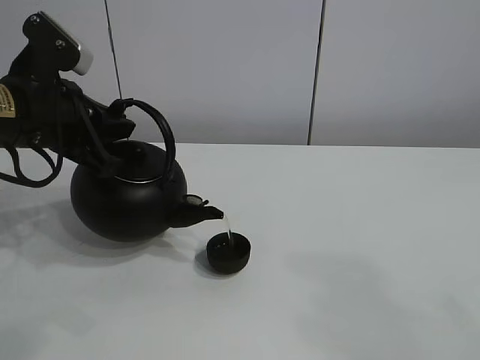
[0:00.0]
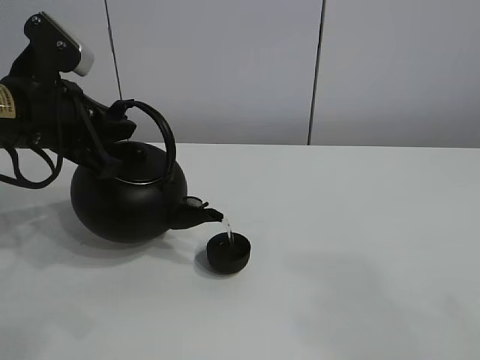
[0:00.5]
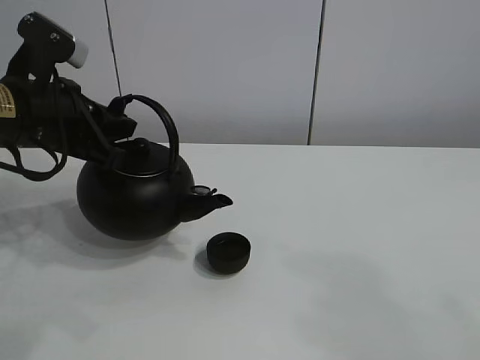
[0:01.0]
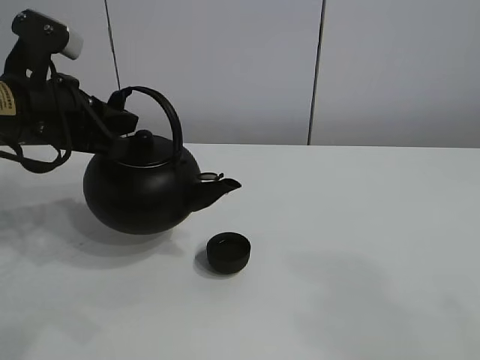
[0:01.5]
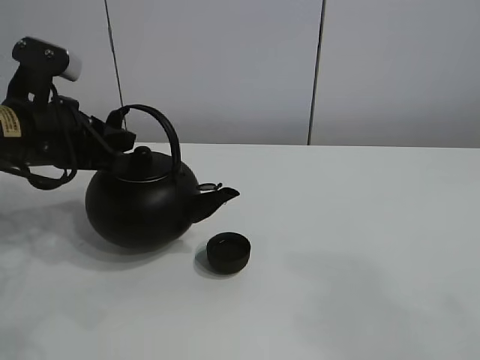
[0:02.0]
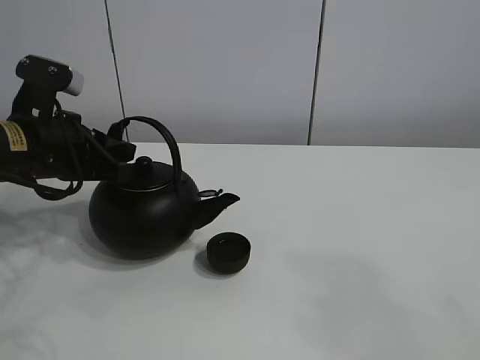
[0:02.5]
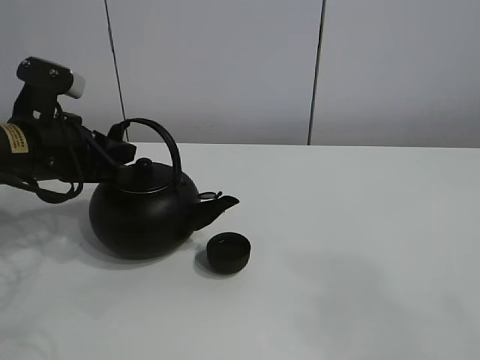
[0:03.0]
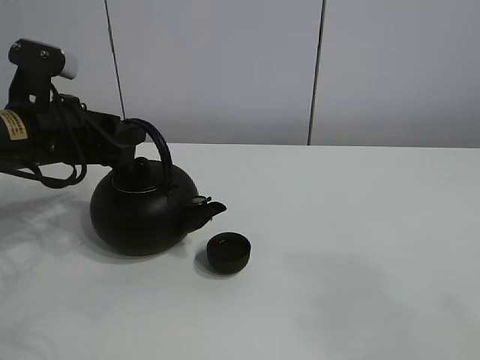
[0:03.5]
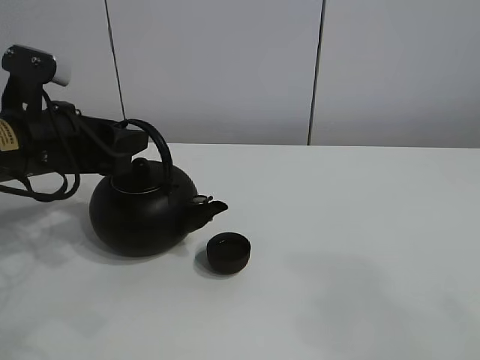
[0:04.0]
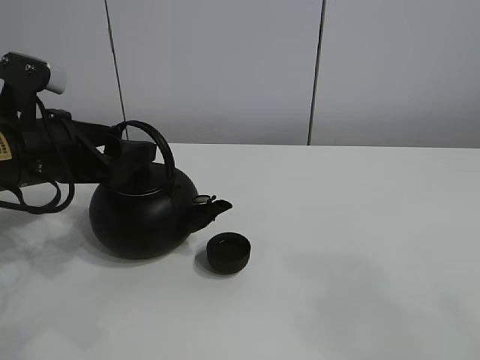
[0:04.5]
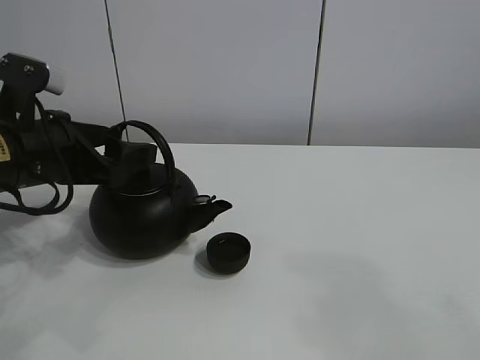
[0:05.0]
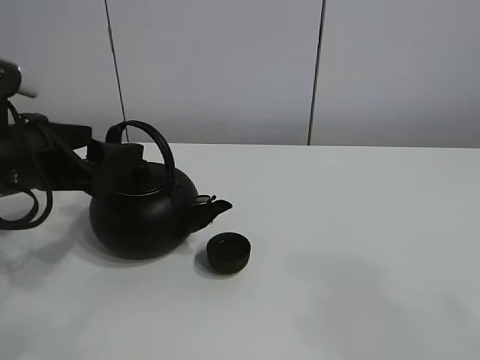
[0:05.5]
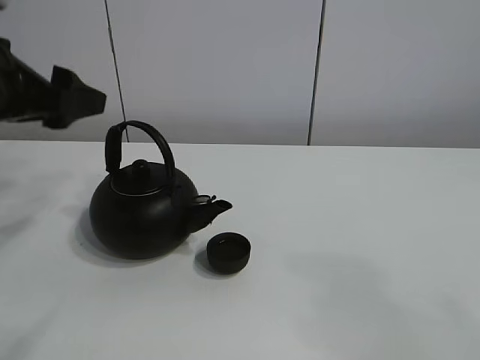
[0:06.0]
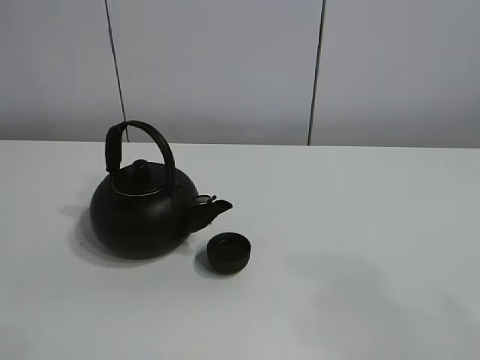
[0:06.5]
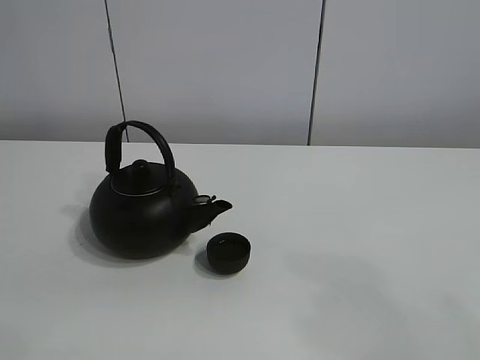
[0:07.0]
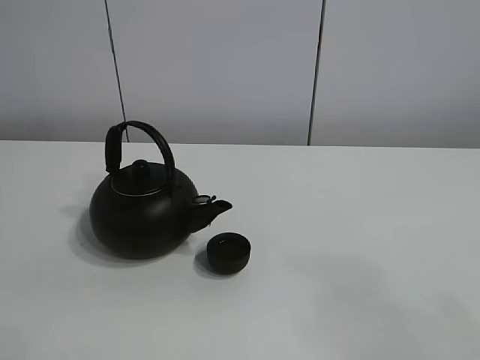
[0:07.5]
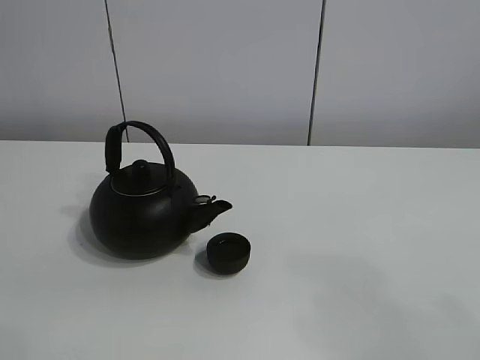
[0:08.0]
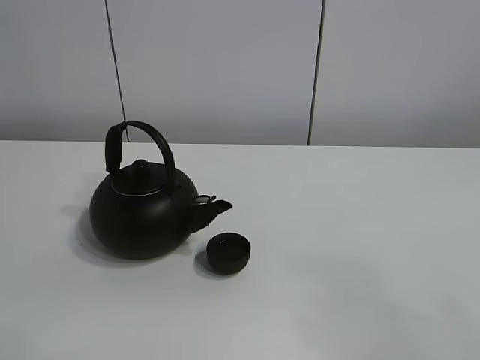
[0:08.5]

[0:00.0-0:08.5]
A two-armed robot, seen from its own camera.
Task of the whole recording: pour tea into the teacup.
0:00.0 to 0:02.0: The grippers move only a little.
0:02.0 to 0:04.0: The left gripper opens.
0:04.0 to 0:06.5: The left gripper travels upward and to the left by about 25 cm, and opens up.

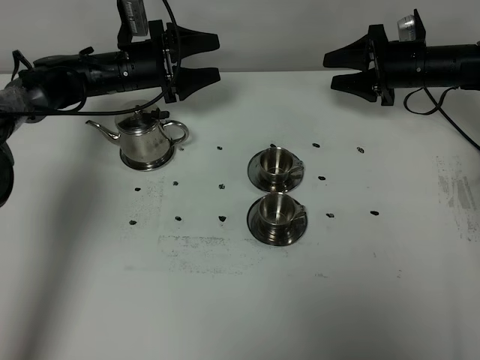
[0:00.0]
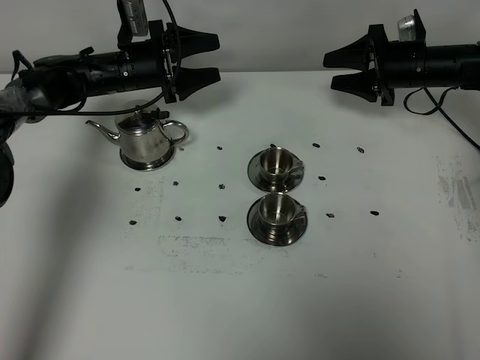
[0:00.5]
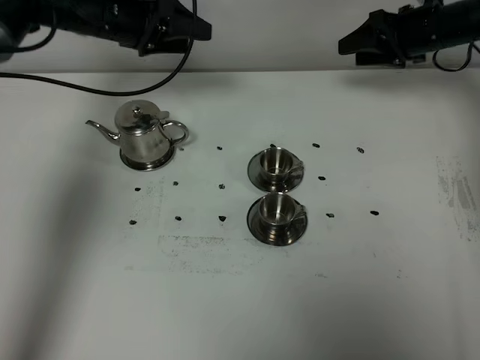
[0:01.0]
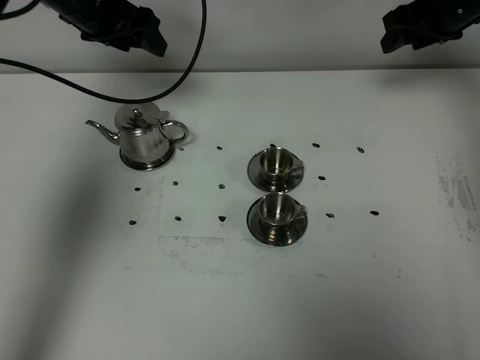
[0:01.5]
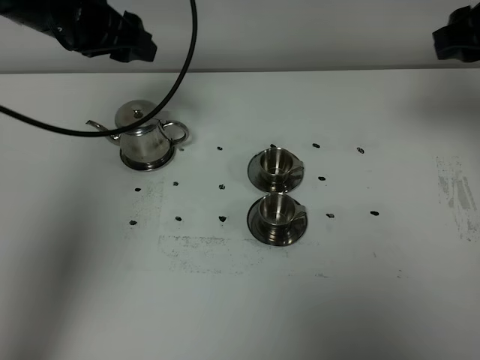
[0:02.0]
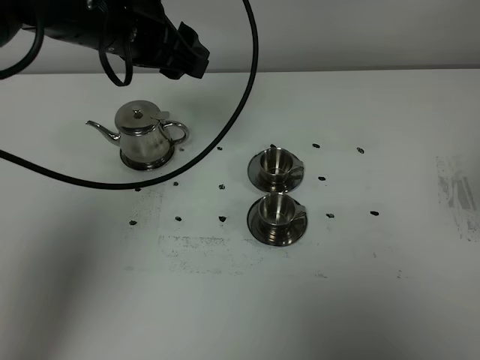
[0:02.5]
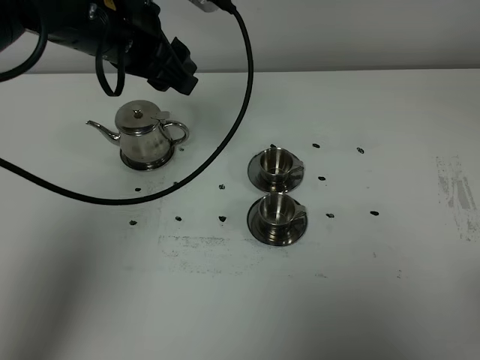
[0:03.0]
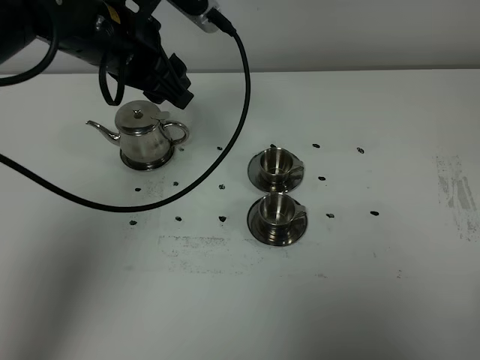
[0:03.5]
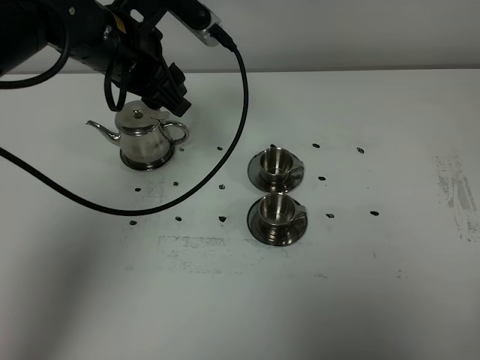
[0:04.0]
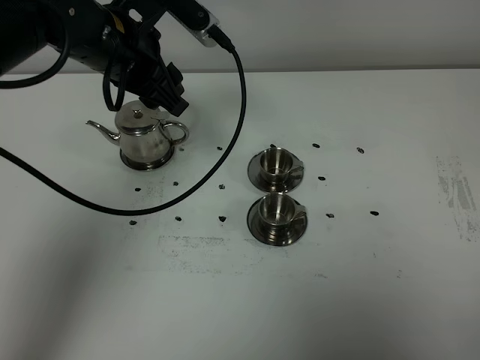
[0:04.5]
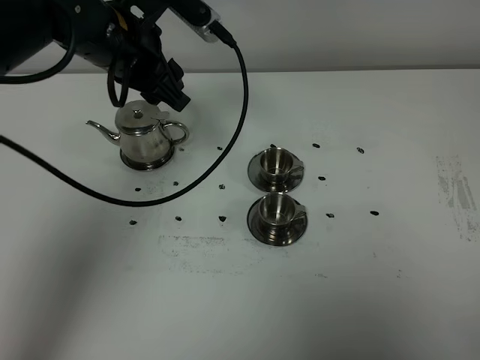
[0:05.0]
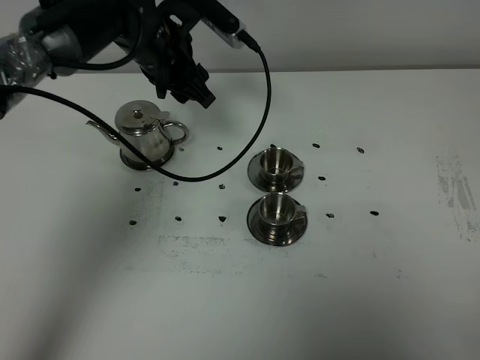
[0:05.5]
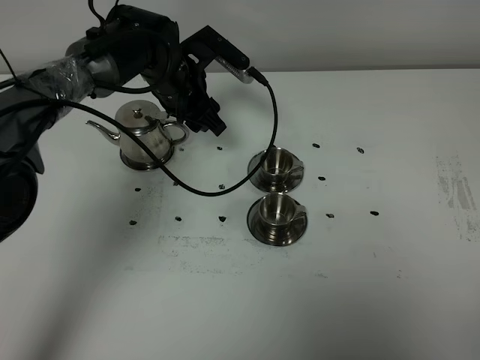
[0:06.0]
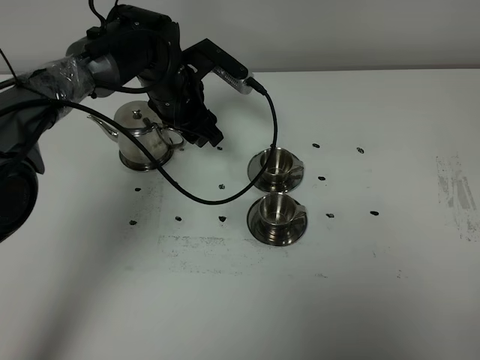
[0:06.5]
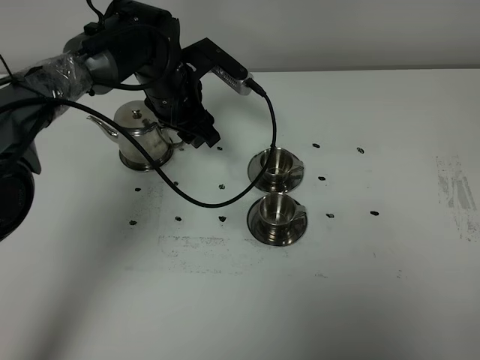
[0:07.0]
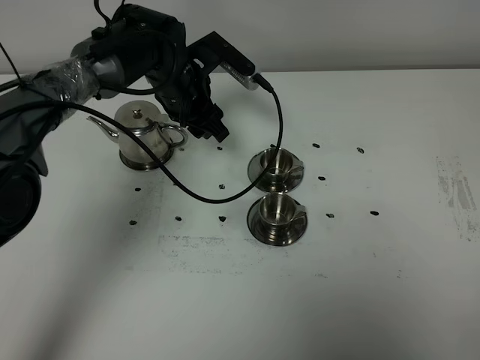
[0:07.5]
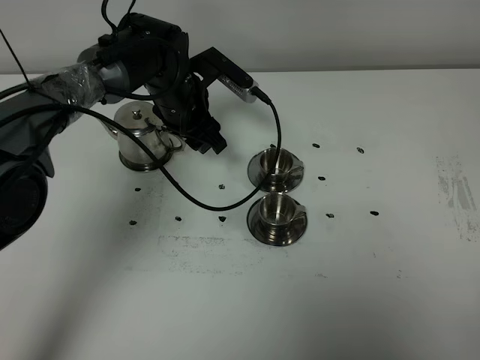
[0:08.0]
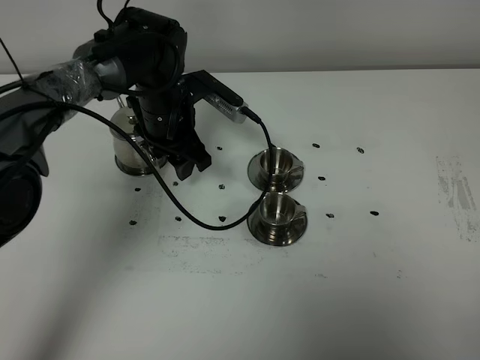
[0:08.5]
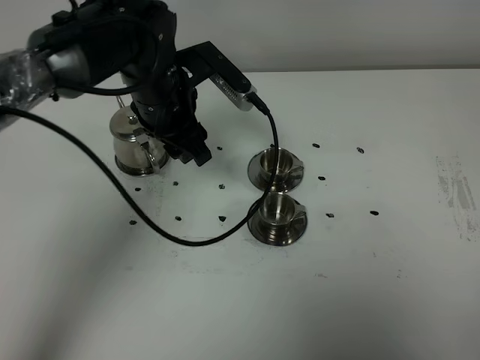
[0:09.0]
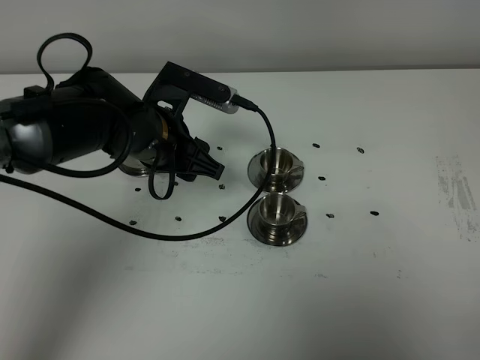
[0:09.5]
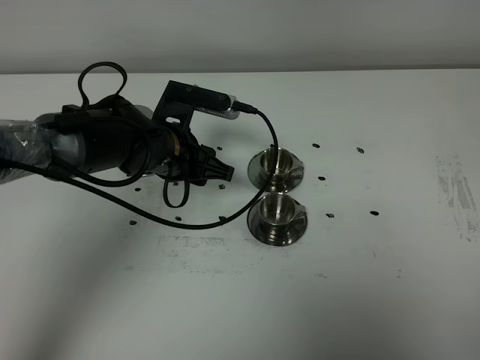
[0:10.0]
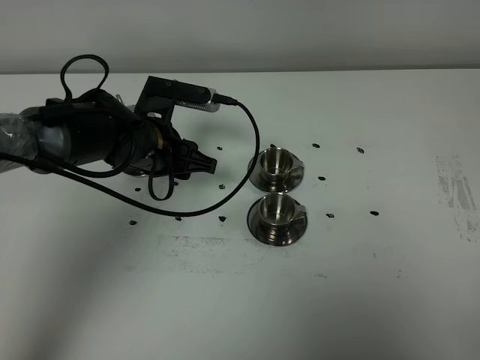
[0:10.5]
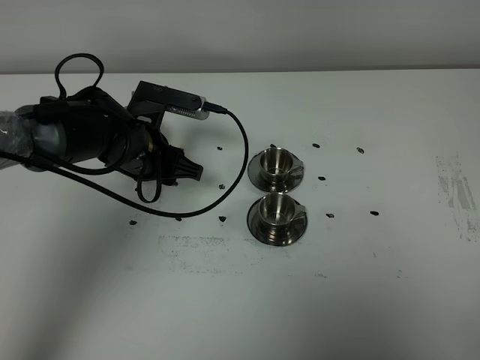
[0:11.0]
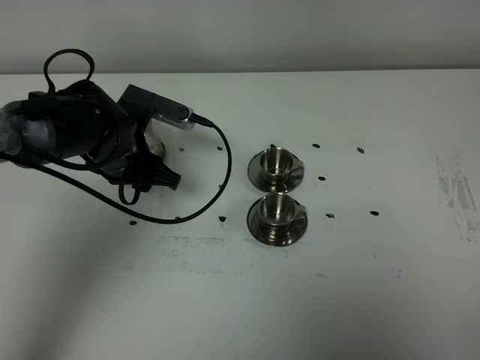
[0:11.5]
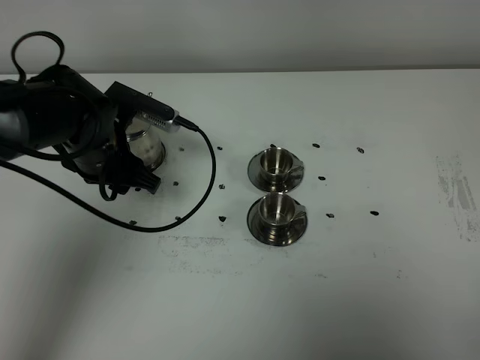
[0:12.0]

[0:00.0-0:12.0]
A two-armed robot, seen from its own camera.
Task of the whole recording: grasp the stainless steel teapot and pour the tea into the two stainless steel teacups one by one, put the stainless steel teapot back in its original place.
0:00.0 to 0:02.0: The two grippers go some 25 cm upward and backward.
0:02.0 to 0:04.0: The left gripper heads to the right, covering approximately 5 cm; the right gripper shifts some 35 cm backward.
0:04.0 to 0:06.0: The left gripper goes some 15 cm downward and forward.
0:06.0 to 0:08.0: The grippers make only small movements.
0:08.0 to 0:10.0: The left gripper shifts approximately 10 cm backward.
0:10.0 to 0:12.0: The left gripper goes some 5 cm to the left.

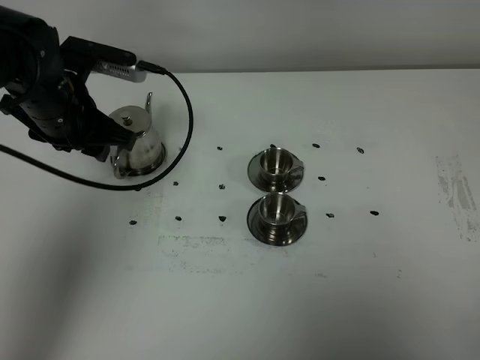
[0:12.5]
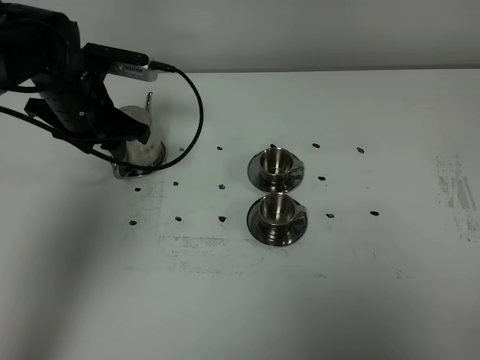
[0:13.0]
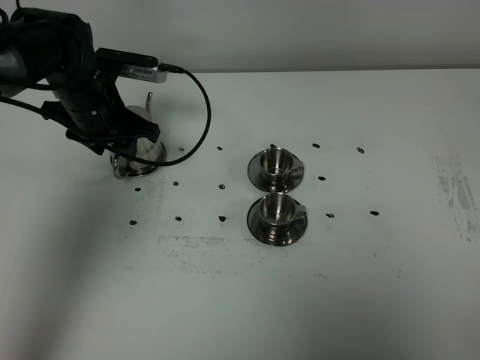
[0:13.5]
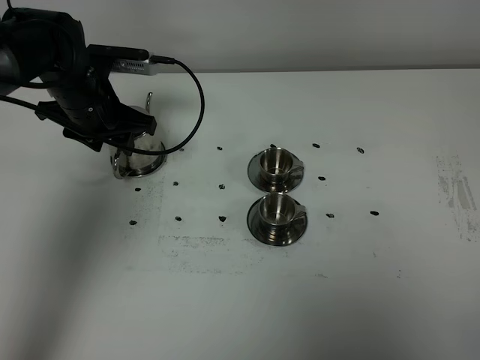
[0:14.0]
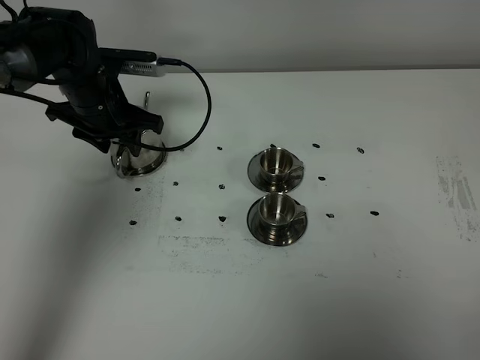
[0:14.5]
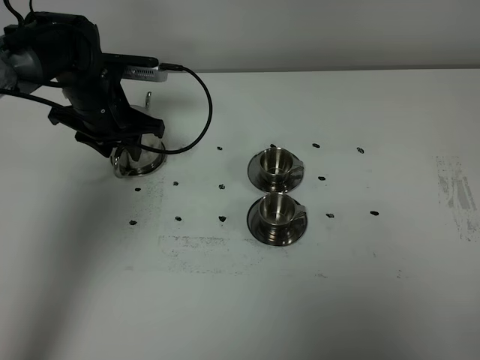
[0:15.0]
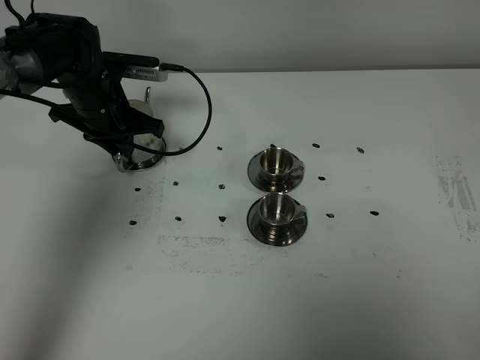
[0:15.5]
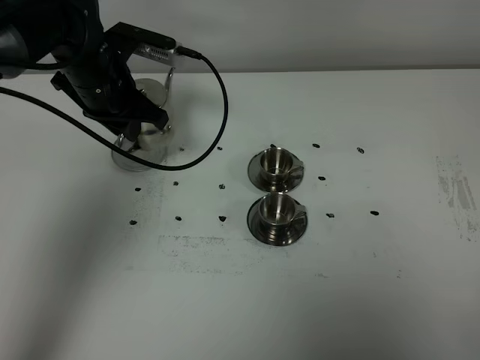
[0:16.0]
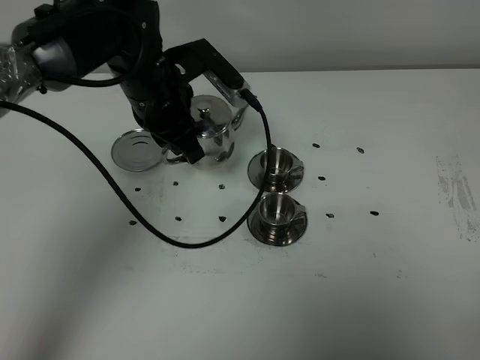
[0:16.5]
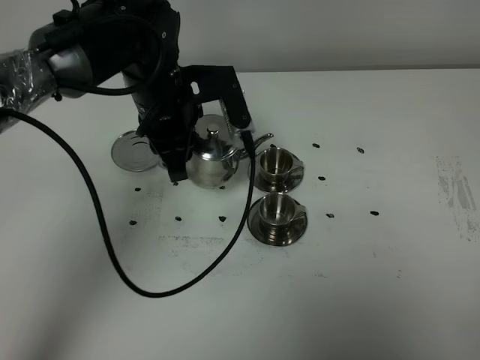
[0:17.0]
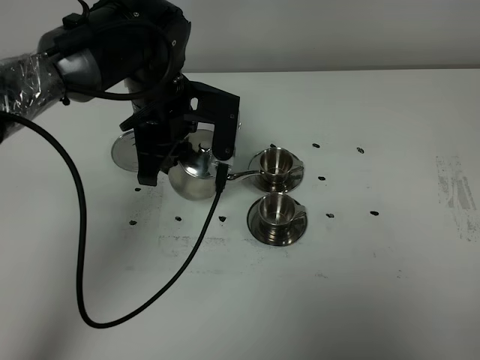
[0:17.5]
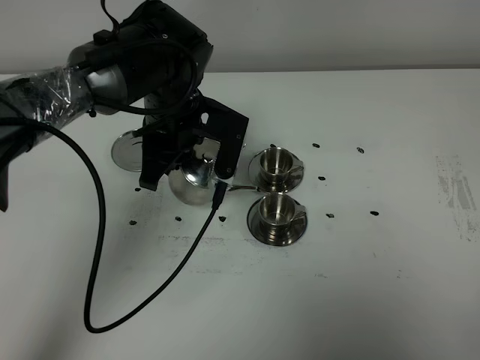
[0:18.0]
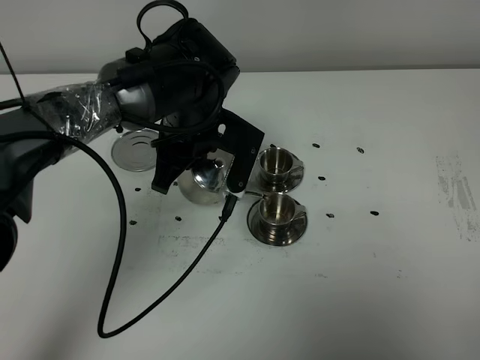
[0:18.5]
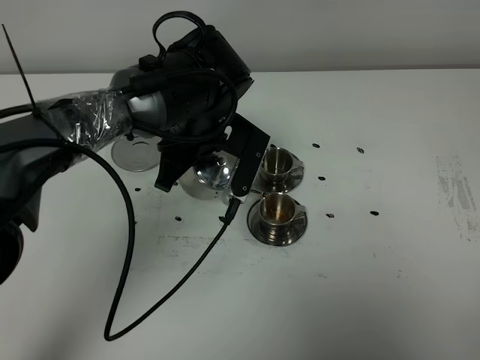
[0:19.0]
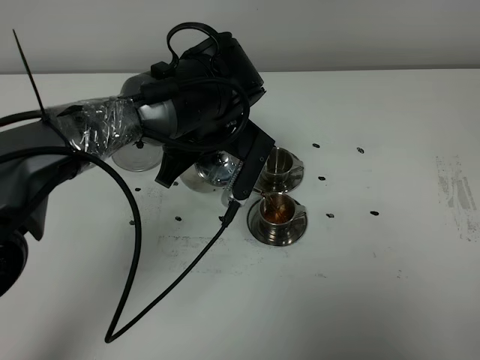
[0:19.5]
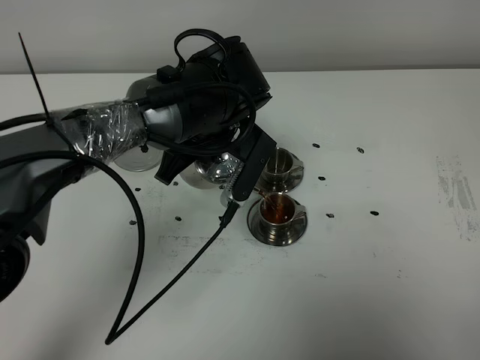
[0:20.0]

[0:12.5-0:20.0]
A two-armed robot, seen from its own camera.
Task of the whole recording: grasp the stainless steel teapot and pour the tea into the two stainless steel teacups one by one, put the stainless steel teapot back in its original place.
Step, 0:12.5 to 0:15.5: Pick up the teapot with the left gripper.
0:12.5 to 0:14.5: The left gripper moves forward and downward, approximately 10 cm.
0:14.5 to 0:16.5: The left gripper goes approximately 15 cm to the right, upward and backward, and closes up.
